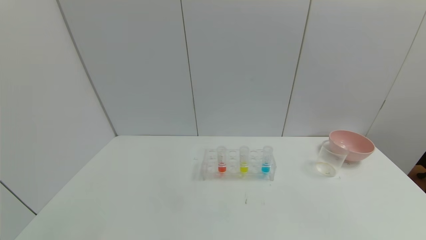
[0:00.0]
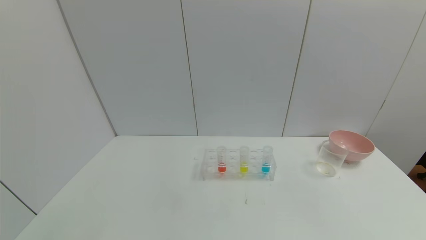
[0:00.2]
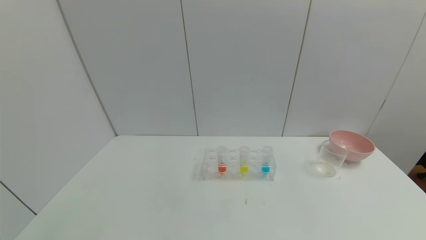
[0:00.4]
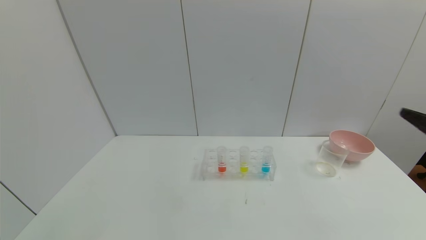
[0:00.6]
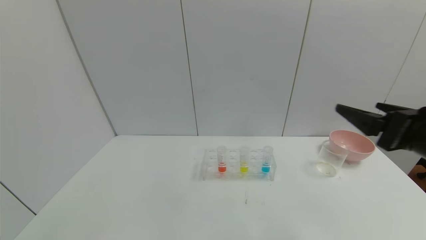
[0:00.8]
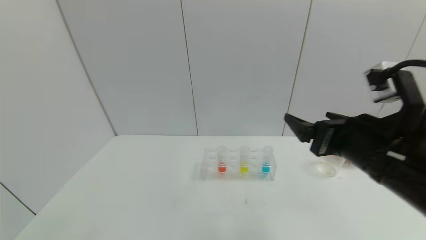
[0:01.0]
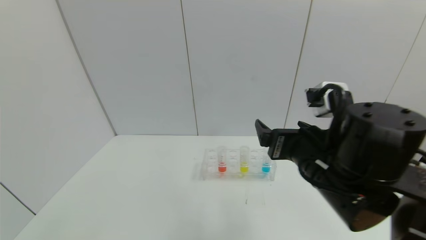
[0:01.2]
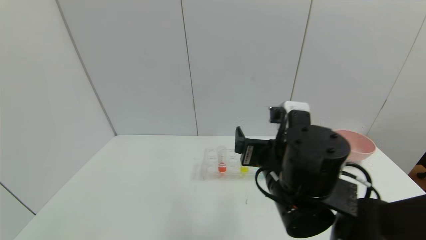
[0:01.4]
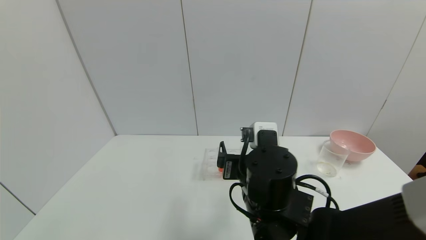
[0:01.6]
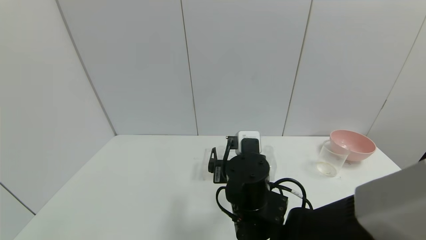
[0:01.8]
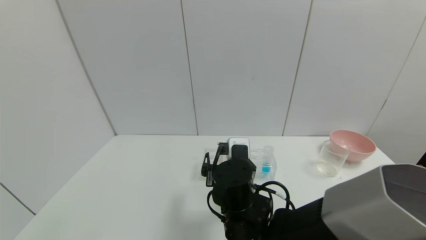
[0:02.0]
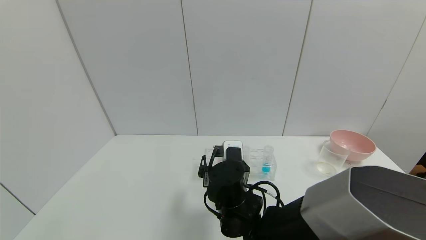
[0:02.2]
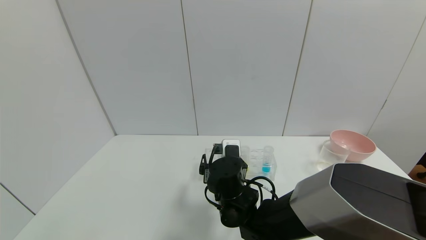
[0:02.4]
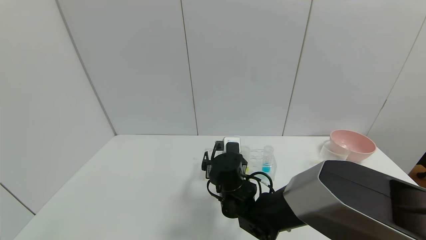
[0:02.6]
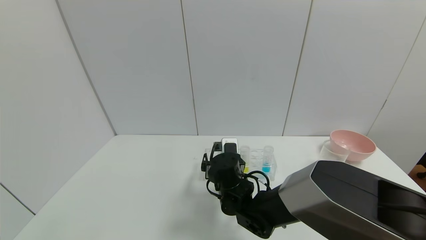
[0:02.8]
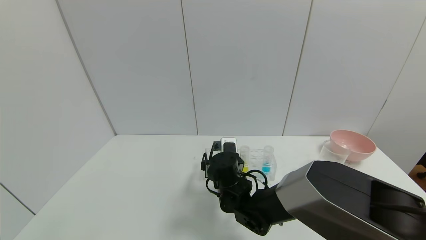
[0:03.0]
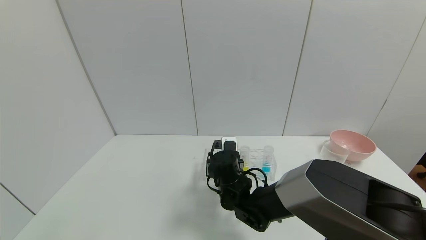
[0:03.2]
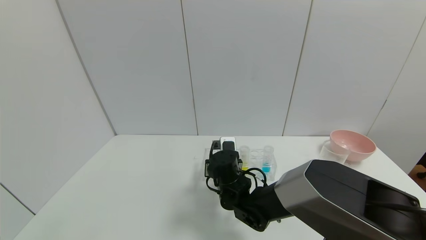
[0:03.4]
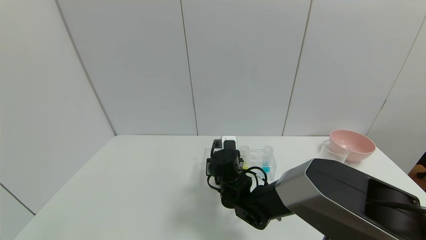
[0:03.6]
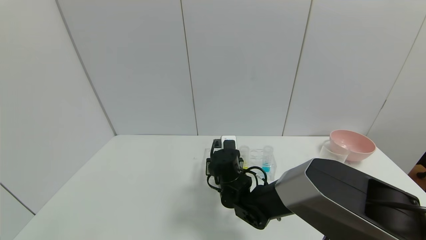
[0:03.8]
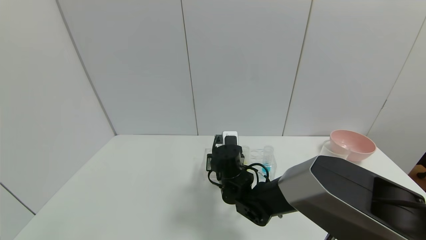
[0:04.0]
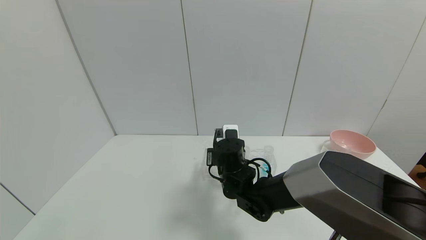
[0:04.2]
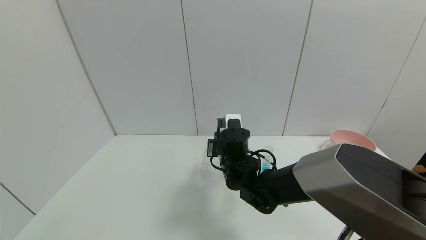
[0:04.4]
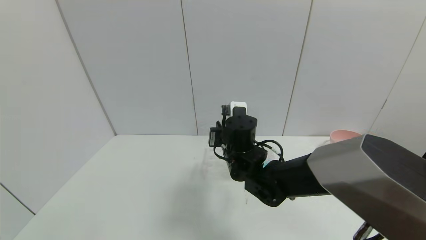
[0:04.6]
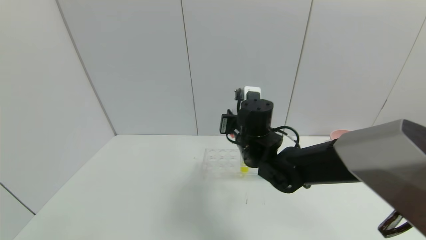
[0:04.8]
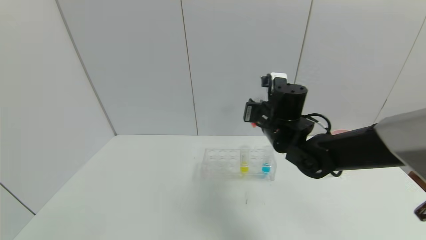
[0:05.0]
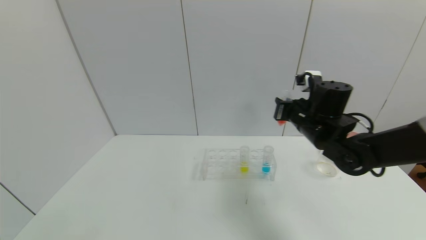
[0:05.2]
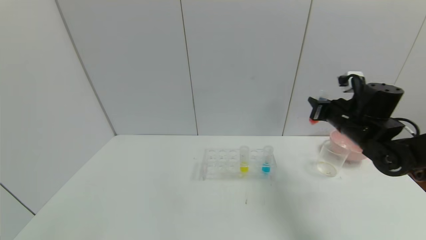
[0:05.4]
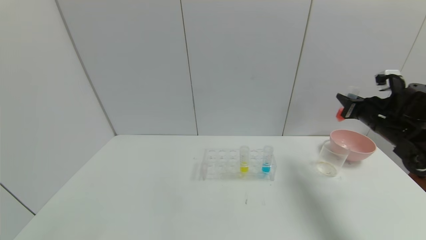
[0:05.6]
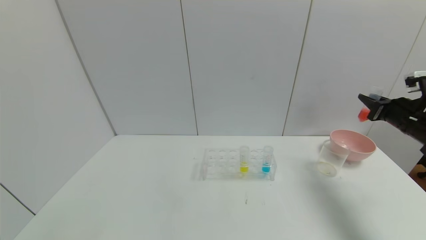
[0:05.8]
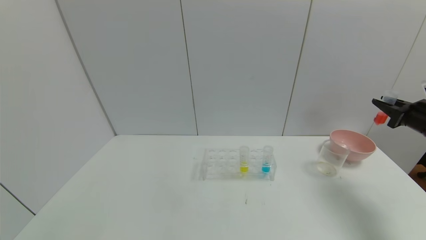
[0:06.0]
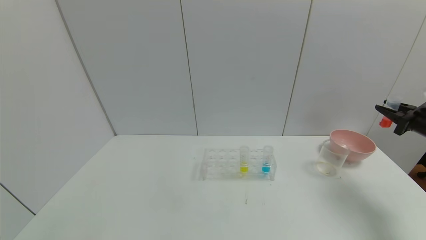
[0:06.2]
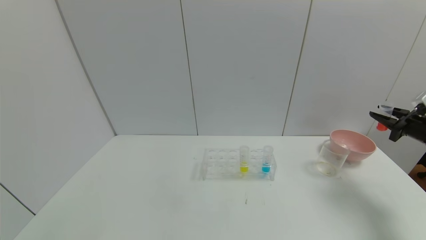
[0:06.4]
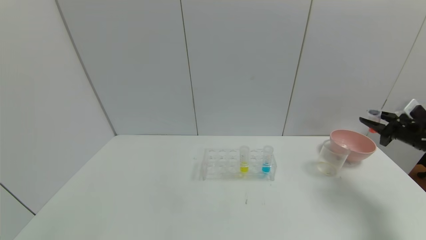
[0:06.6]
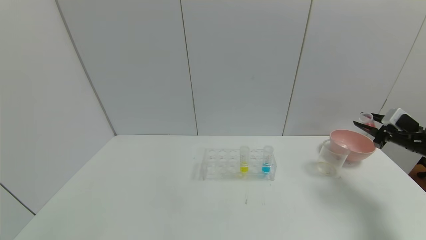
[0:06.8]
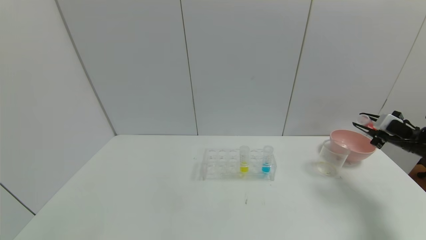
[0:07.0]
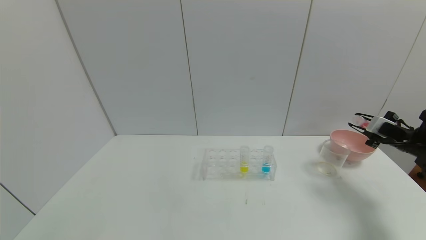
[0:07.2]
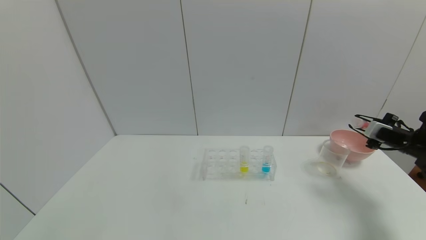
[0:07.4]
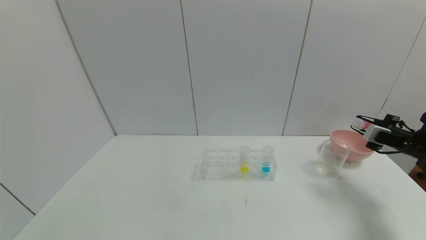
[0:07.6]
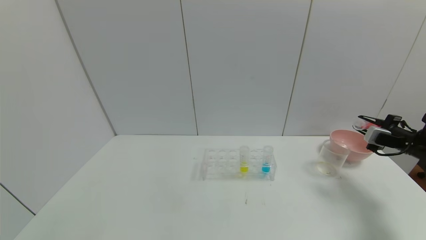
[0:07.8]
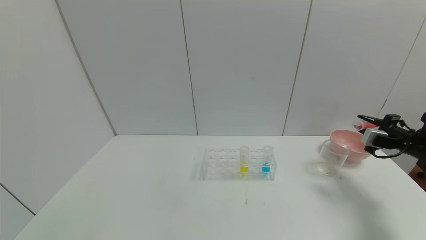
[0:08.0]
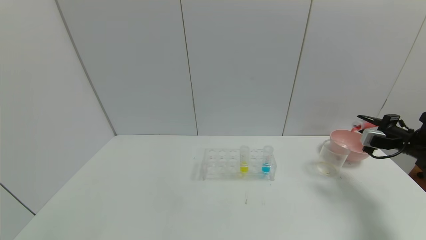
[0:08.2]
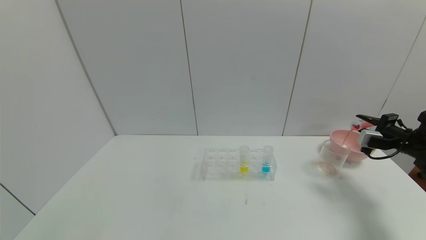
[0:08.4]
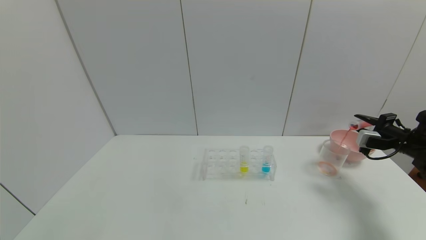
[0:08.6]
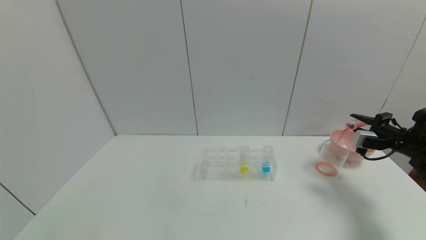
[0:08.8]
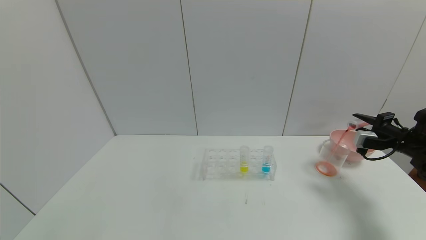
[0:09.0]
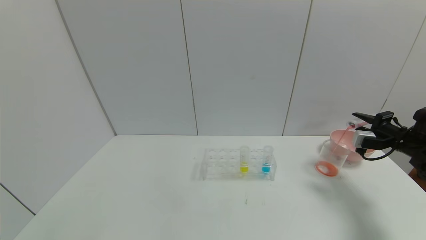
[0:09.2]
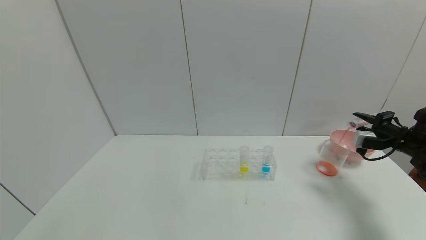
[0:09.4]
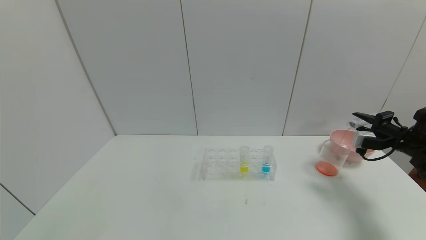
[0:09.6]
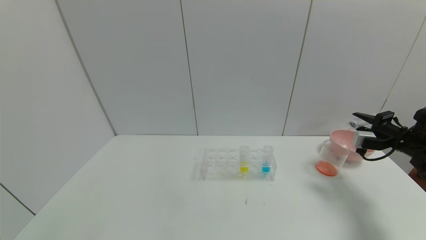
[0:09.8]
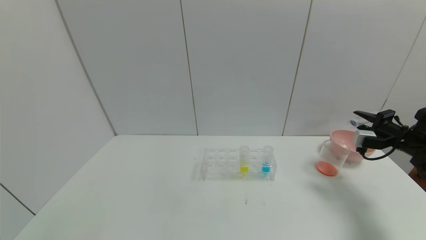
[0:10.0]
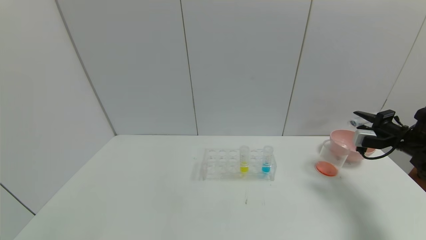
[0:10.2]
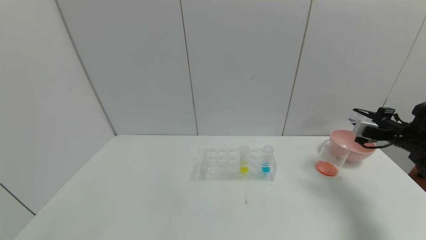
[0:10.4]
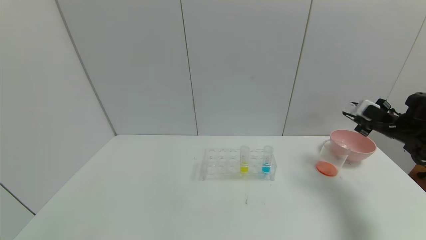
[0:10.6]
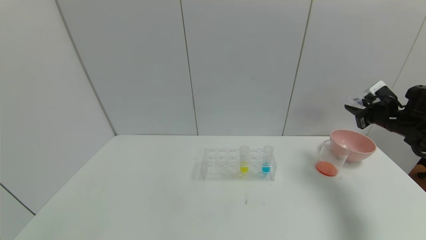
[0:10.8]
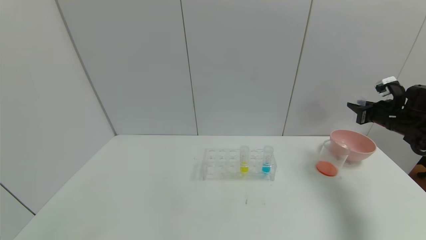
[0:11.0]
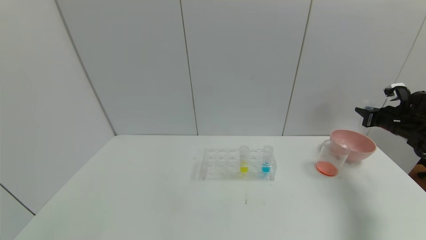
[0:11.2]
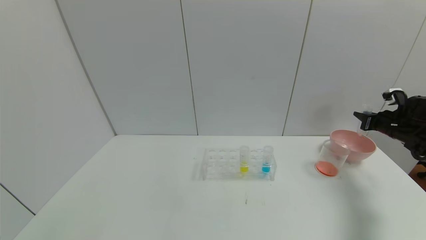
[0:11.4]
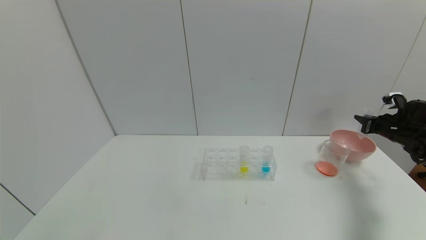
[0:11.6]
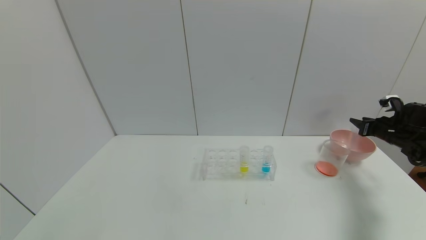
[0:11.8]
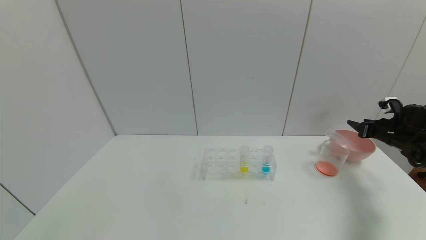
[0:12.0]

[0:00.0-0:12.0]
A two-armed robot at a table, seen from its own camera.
Task of the whole recording: pick up the test tube with yellow pigment and the test tube with red pigment by grippers and pour them into the beaker.
Step, 0:00.0 to 0:03.6: Grasp the red reagent with the right gripper.
Step, 0:03.8 to 0:10.0: Pour the red reagent into the graduated cylinder with the right gripper.
Step, 0:10.2 to 0:11.8: Place the test tube into the bowl with the right gripper.
0:00.0 to 0:01.6: The right gripper goes roughly 40 cm to the left and forward.
0:01.6 to 0:03.0: The right gripper shifts approximately 15 cm forward and downward.
0:03.0 to 0:04.4: The right gripper heads upward, covering roughly 5 cm, and closes up.
0:04.4 to 0:06.0: The right gripper heads to the right, covering roughly 50 cm.
0:06.0 to 0:07.6: The right gripper moves downward, roughly 5 cm.
0:07.6 to 0:09.0: There are only small adjustments of the grippers.
0:09.0 to 0:10.4: The grippers stay close to where they were, moving slightly.
0:10.4 to 0:12.0: The right gripper opens up.

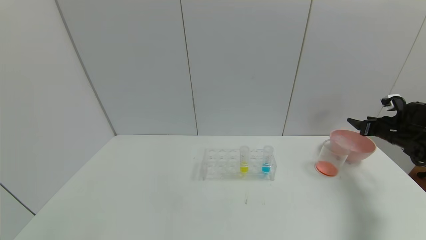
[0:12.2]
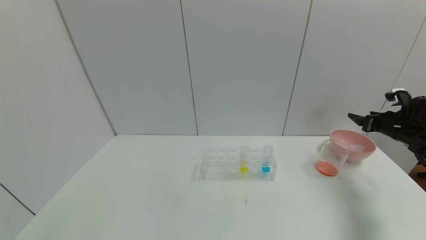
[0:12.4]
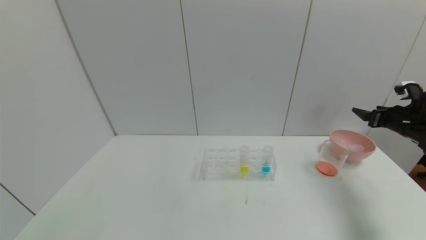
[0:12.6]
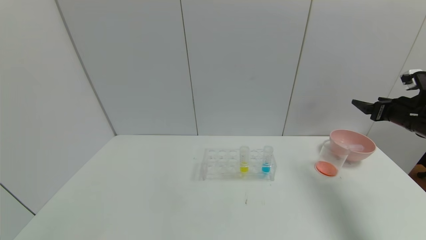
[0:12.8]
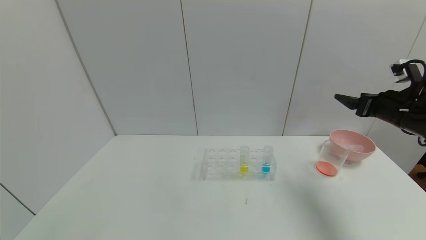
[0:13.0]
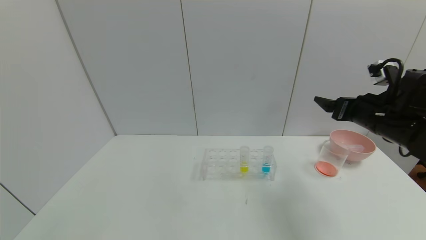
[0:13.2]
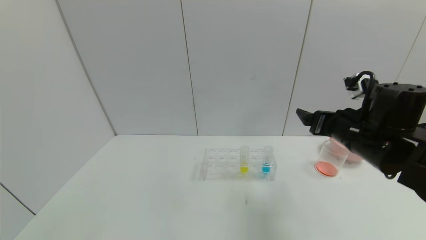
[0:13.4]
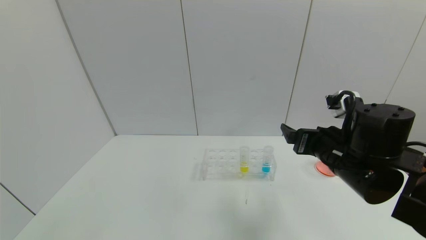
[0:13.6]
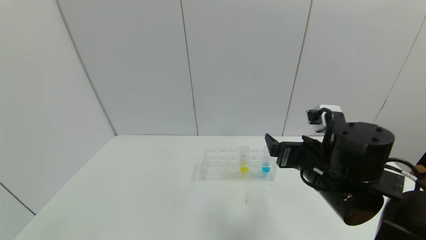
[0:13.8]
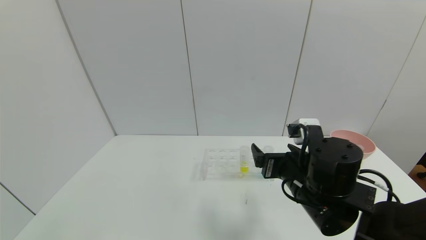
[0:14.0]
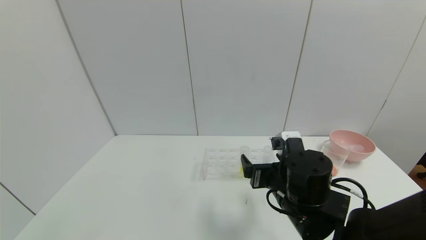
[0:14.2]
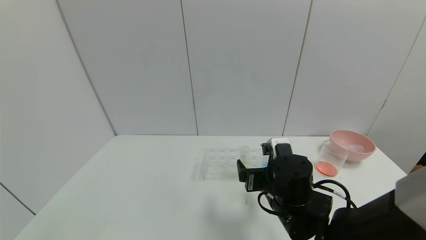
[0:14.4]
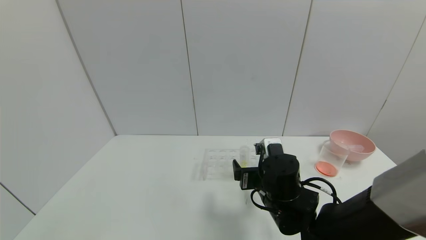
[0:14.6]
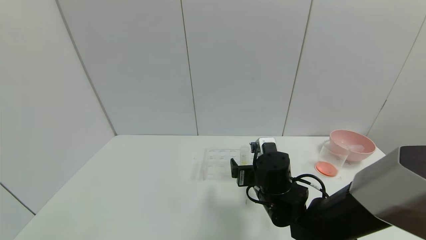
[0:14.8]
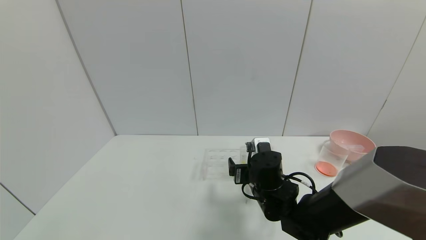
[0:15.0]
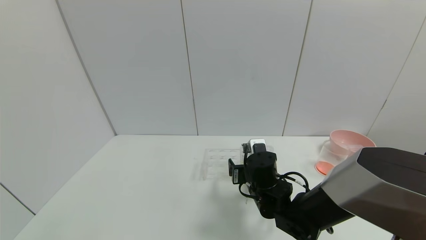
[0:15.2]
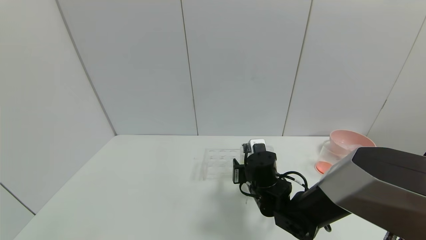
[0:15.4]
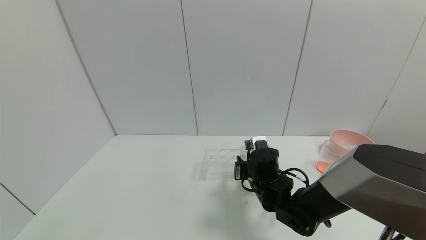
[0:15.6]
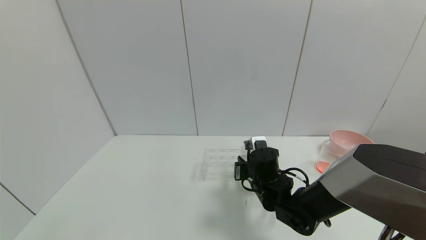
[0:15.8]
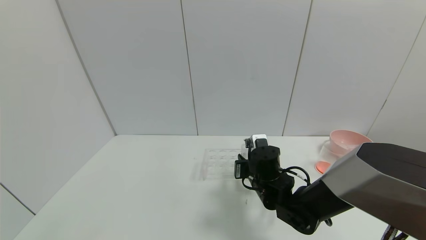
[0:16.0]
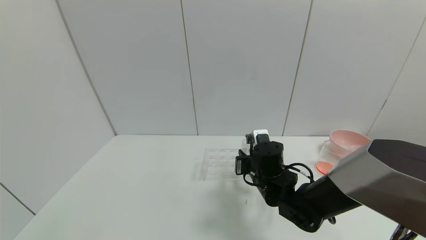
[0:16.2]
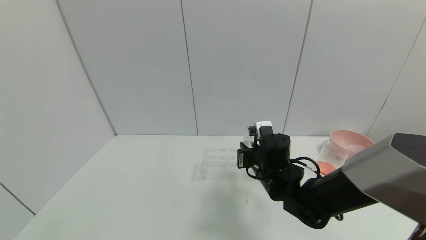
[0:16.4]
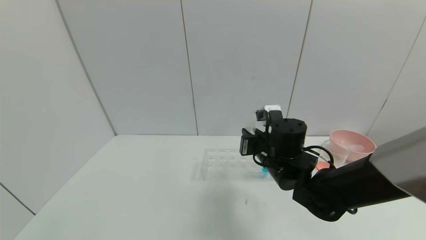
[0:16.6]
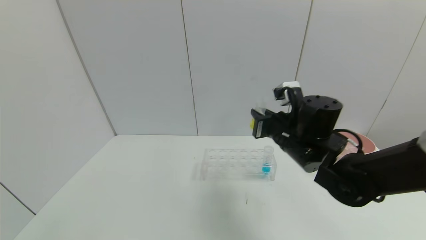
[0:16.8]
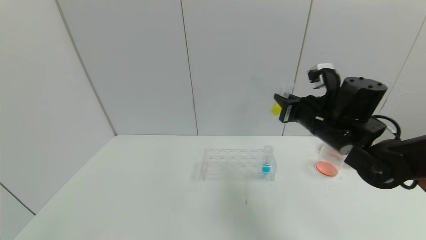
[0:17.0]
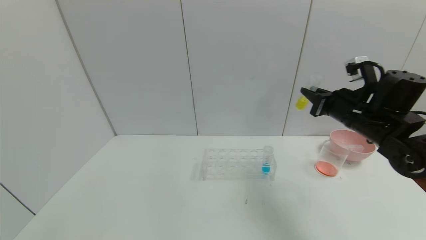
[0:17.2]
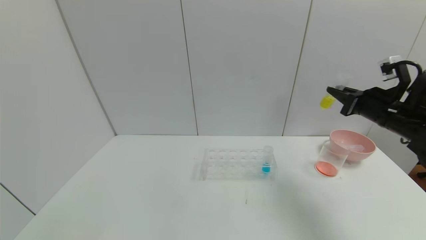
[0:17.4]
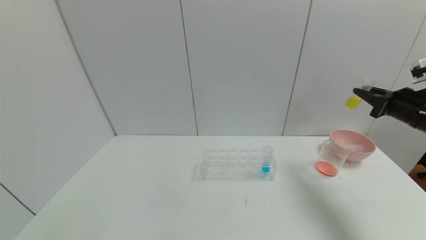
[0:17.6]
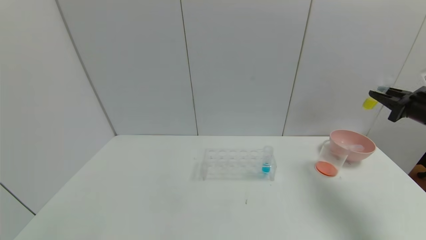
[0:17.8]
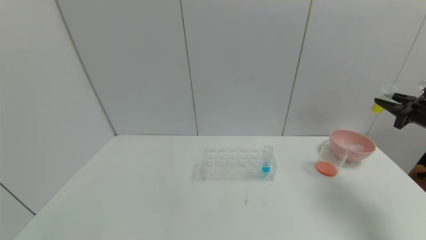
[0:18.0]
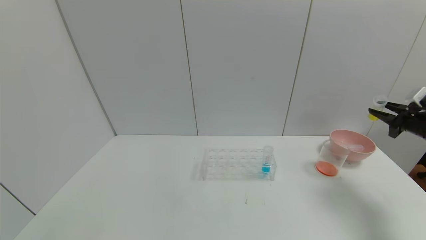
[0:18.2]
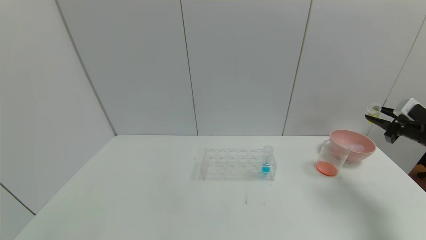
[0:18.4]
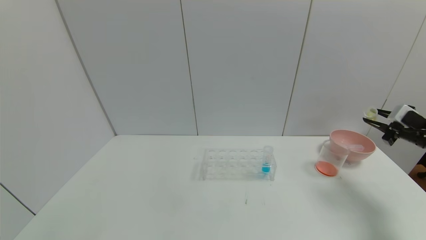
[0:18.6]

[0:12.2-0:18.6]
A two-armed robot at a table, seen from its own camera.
Task of the whole recording: pick up the test tube with yellow pigment and the test tube with red pigment by grippers and pour them into the beaker.
Step, 0:12.2 to 0:15.6: Grasp the yellow reagent with the right gripper.
0:12.2 to 0:13.8: The right gripper travels to the left and backward by approximately 35 cm.
0:13.8 to 0:15.4: The right gripper heads downward, to the left and forward, covering about 15 cm, and closes its fingers.
0:15.4 to 0:17.0: The right gripper moves upward and to the right, about 20 cm, and closes its fingers.
0:17.0 to 0:18.6: The right gripper is displaced to the right by about 30 cm.
